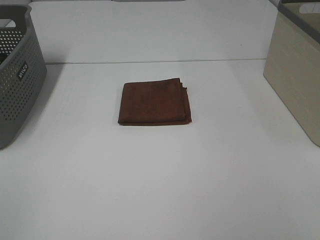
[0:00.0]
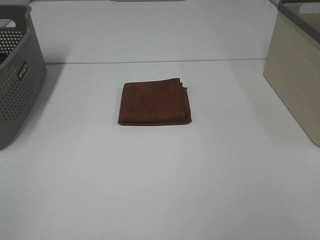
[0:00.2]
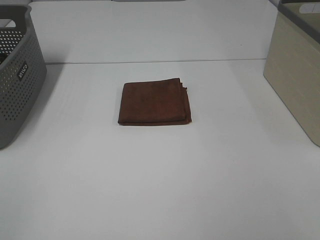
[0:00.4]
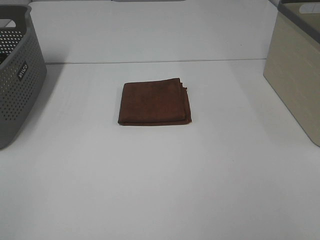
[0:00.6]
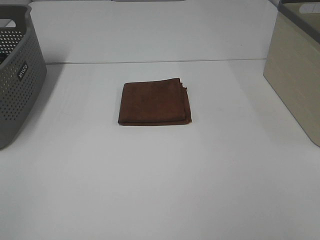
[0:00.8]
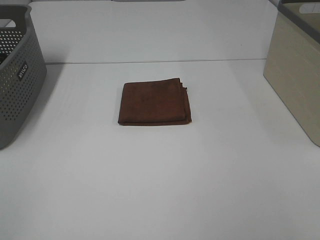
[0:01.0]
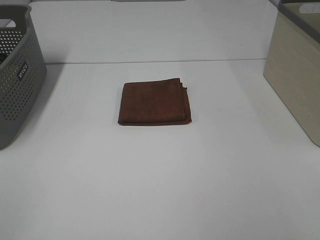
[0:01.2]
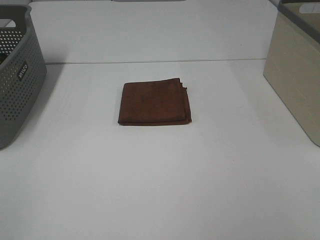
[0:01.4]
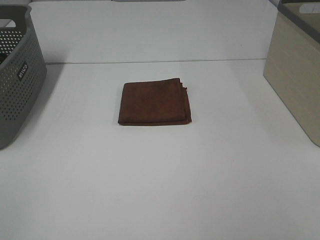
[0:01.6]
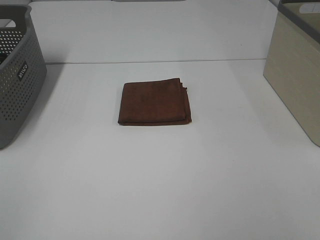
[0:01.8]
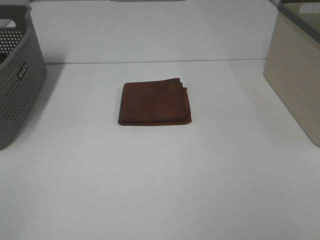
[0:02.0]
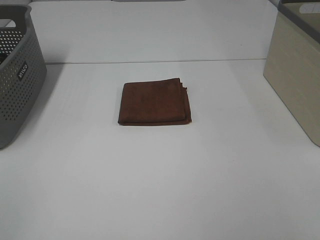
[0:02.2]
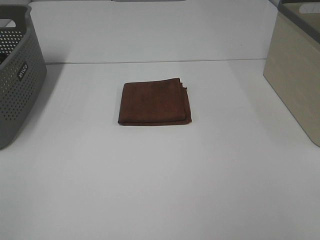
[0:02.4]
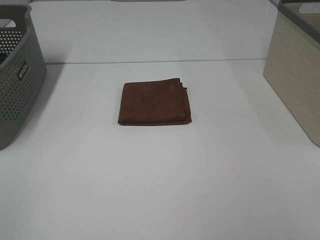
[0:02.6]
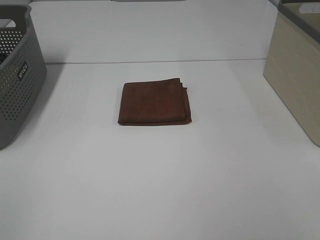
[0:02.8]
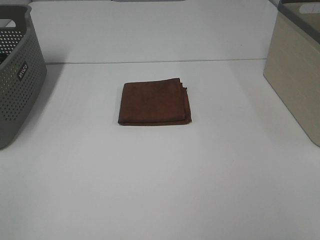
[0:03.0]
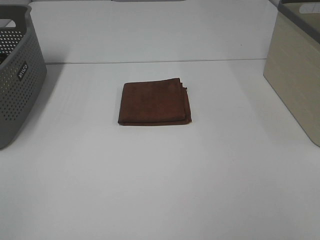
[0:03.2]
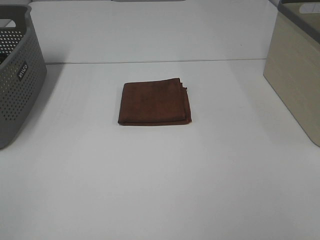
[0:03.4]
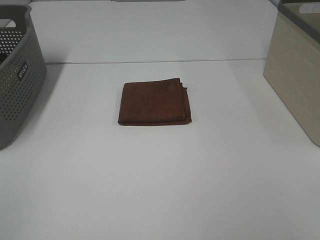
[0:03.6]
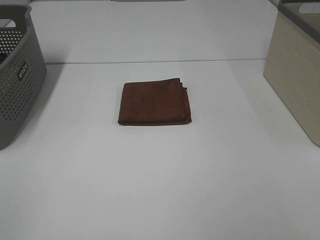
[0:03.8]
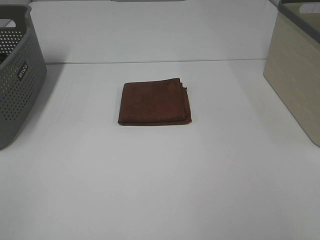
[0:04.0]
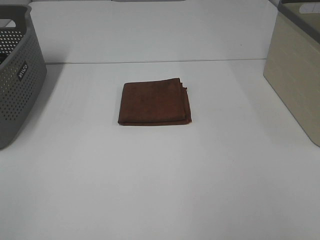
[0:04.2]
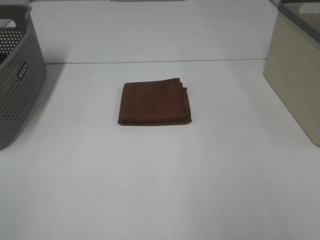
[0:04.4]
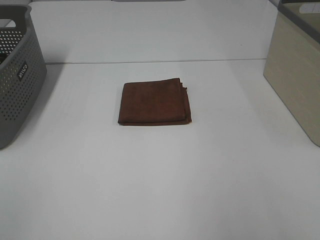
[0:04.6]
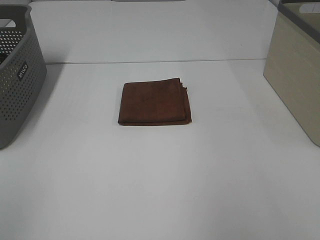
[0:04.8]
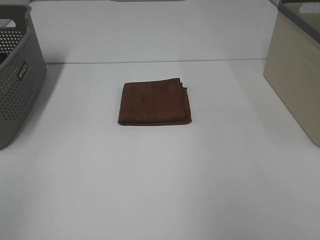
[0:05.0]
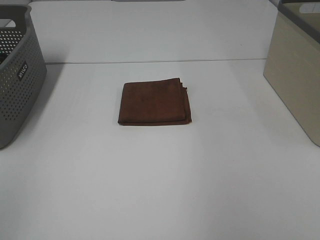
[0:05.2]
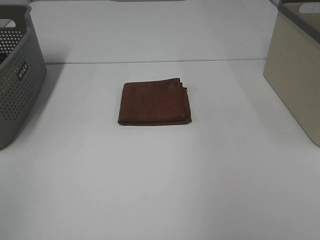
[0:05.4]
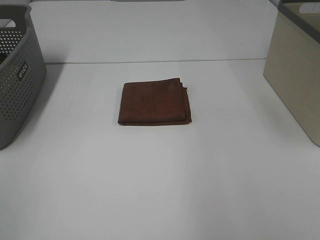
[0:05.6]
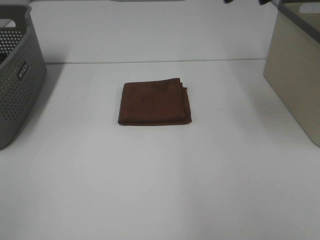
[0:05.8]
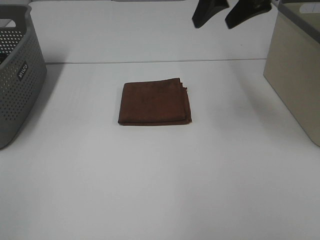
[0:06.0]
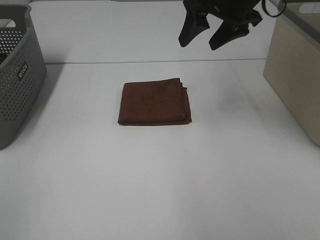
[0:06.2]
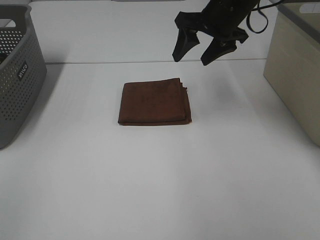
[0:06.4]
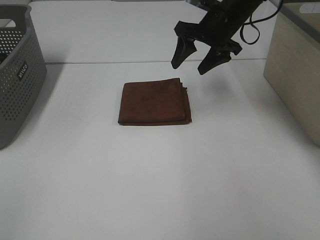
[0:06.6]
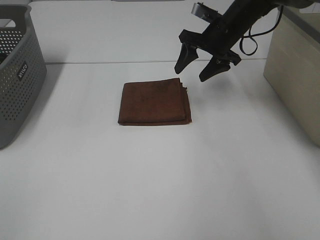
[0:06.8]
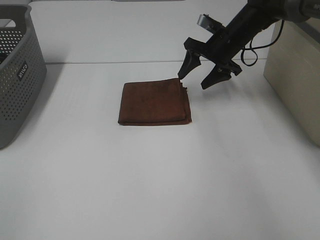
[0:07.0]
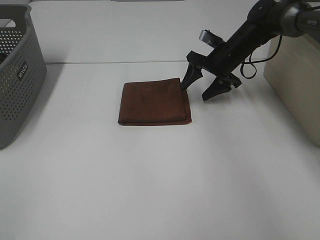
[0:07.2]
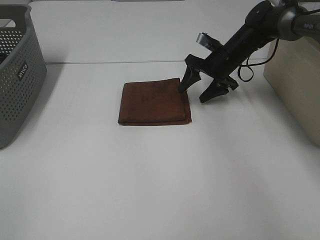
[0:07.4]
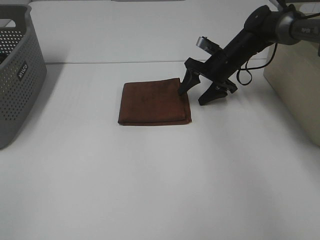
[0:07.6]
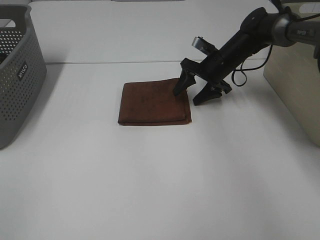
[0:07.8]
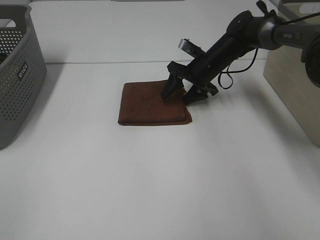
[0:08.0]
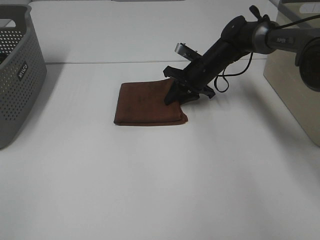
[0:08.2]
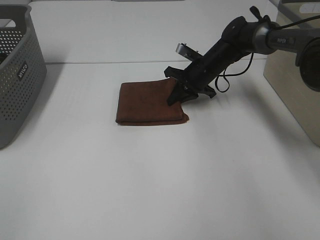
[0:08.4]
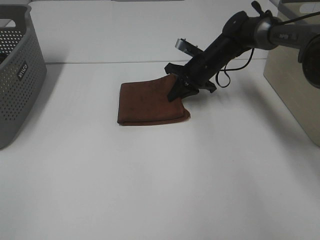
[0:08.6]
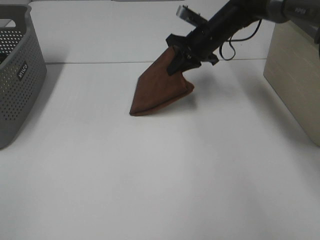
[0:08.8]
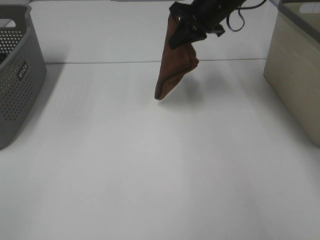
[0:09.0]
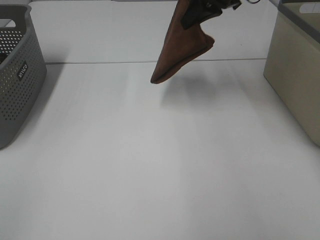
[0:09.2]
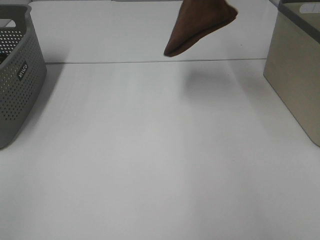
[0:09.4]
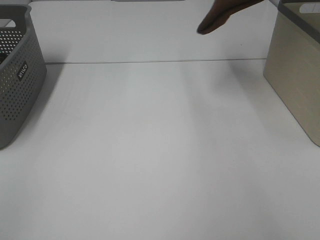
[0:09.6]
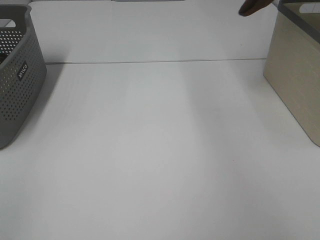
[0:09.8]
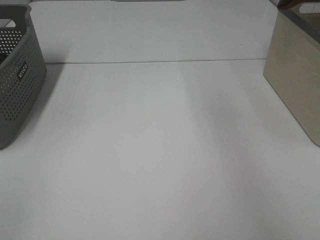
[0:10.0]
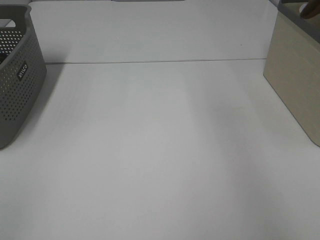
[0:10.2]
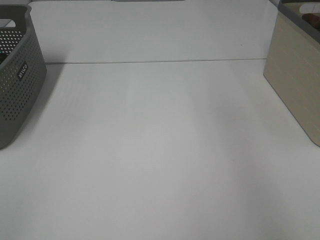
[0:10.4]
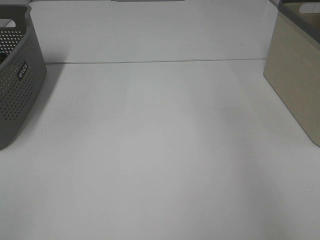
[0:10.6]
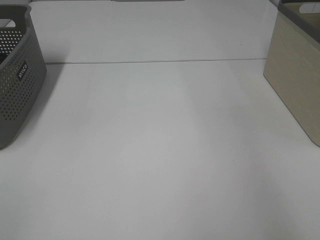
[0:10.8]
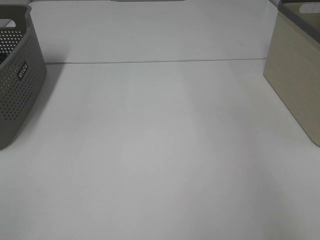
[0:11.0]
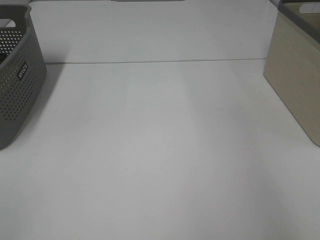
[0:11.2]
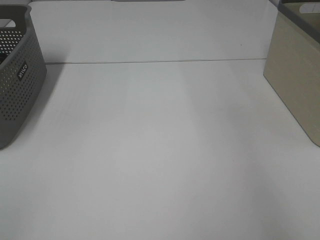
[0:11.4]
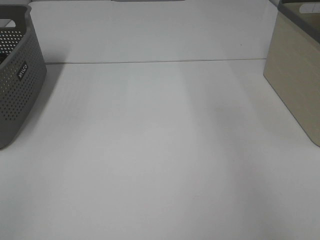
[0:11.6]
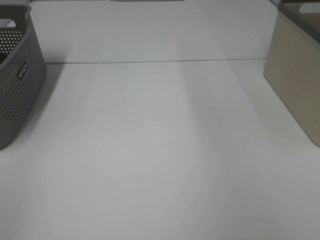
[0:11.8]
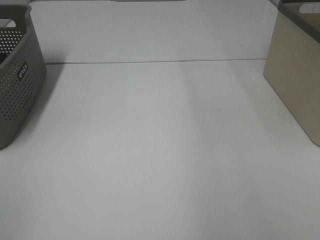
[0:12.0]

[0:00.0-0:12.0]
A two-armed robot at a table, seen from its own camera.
Step, 0:00.0 to 0:08.4: Right hand: grab the folded brown towel.
Step, 0:08.6 to 0:11.2: Right hand: place the brown towel in right basket.
0:00.0 to 0:03.0: Both grippers stay about where they are.
0:04.4 to 0:06.0: The right gripper is displaced forward and to the left by approximately 35 cm.
0:06.0 to 0:07.6: The right gripper heads downward and forward, covering roughly 25 cm.
0:07.6 to 0:09.0: The right gripper shifts approximately 15 cm upward, and closes its fingers.
0:09.0 to 0:10.4: The right gripper travels to the right and upward by some 30 cm.

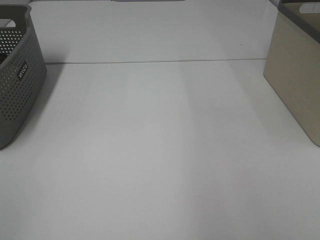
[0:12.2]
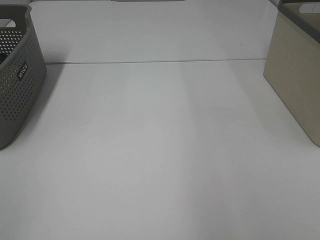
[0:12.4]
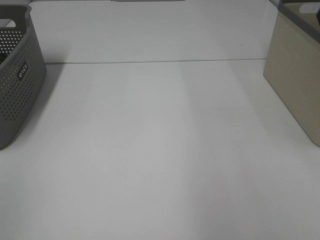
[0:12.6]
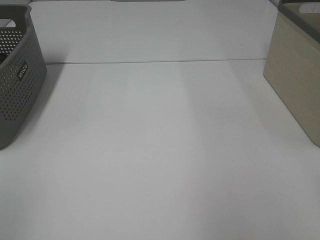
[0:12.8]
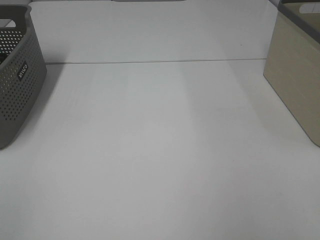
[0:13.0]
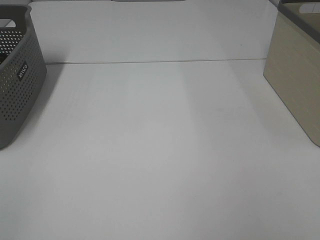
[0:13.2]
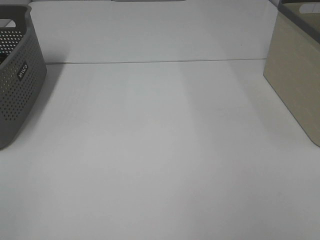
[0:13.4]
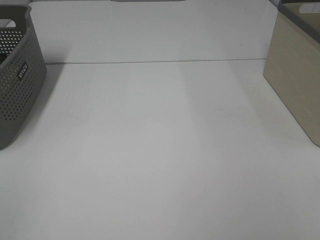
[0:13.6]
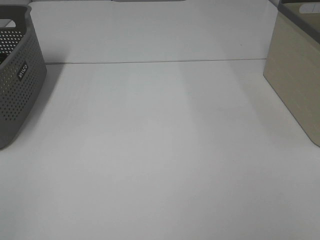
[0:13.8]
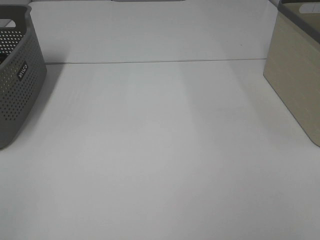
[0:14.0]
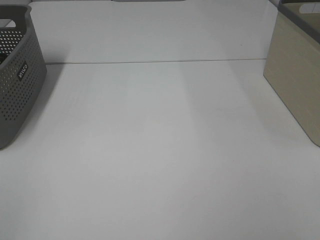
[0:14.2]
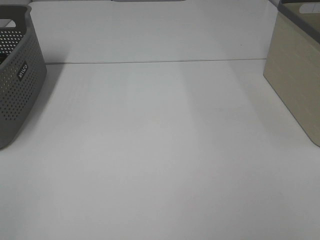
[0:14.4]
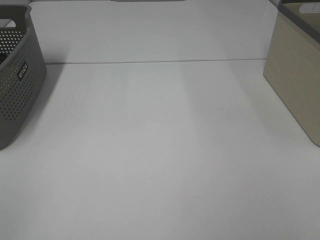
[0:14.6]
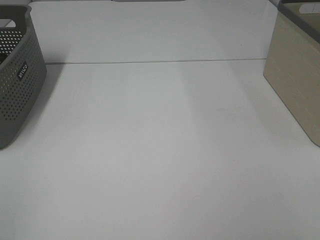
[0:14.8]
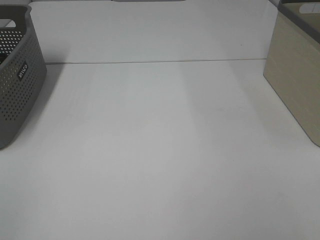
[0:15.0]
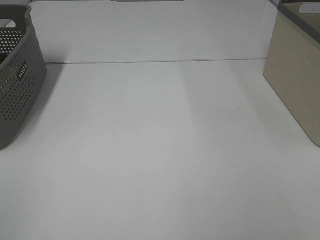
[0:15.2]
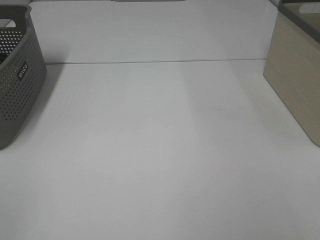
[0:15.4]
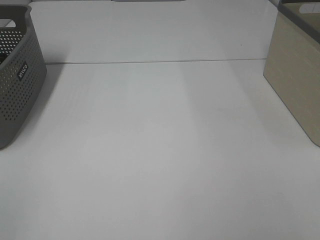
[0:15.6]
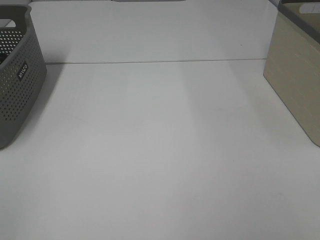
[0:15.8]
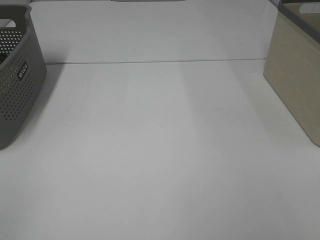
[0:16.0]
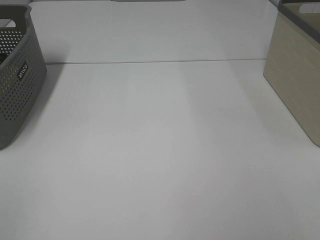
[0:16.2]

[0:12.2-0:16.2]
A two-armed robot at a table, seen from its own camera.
0:13.6 to 0:14.8: The two grippers keep their place.
0:14.8 to 0:16.2: Both grippers stay put.

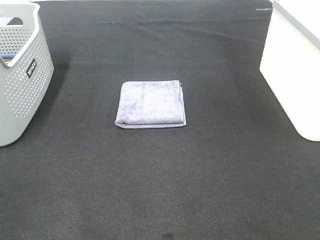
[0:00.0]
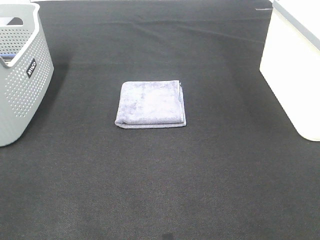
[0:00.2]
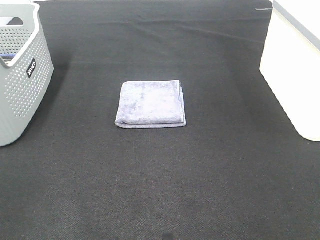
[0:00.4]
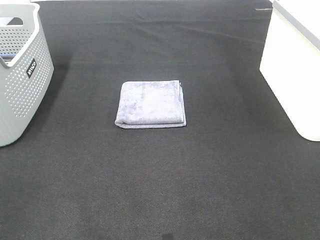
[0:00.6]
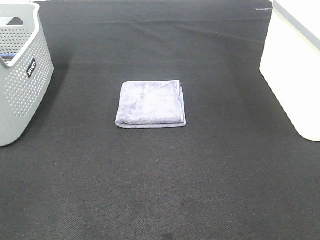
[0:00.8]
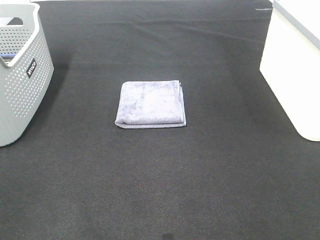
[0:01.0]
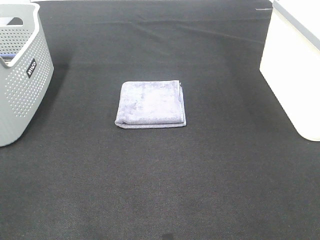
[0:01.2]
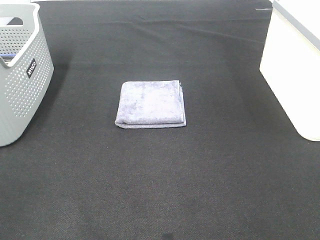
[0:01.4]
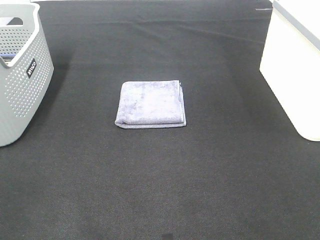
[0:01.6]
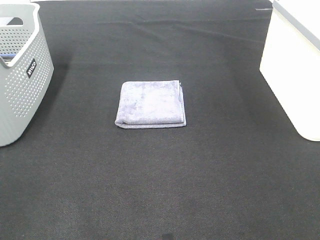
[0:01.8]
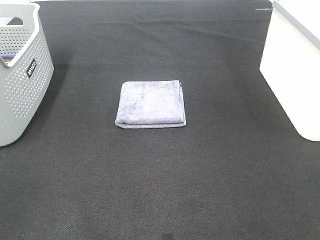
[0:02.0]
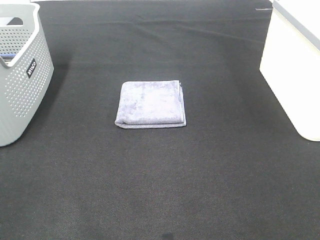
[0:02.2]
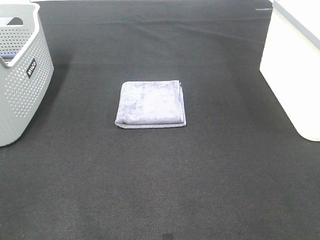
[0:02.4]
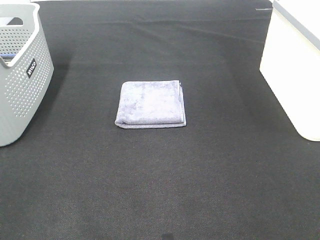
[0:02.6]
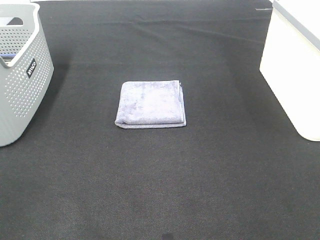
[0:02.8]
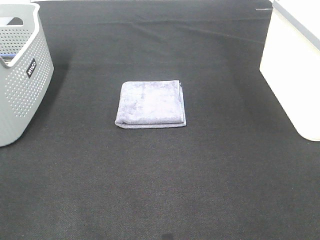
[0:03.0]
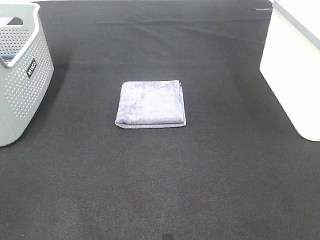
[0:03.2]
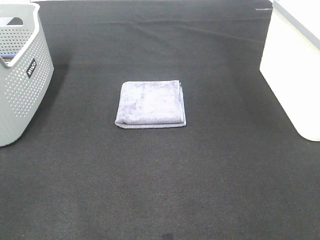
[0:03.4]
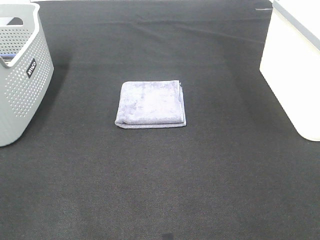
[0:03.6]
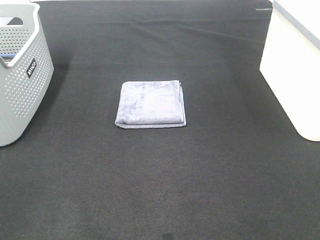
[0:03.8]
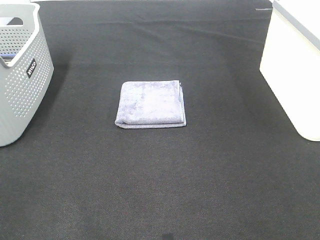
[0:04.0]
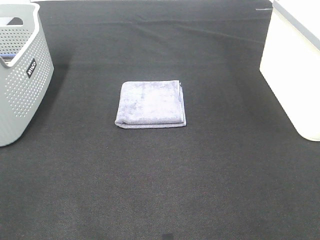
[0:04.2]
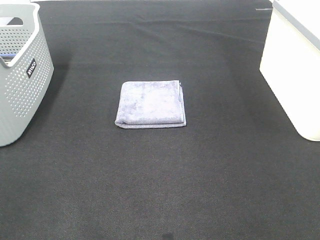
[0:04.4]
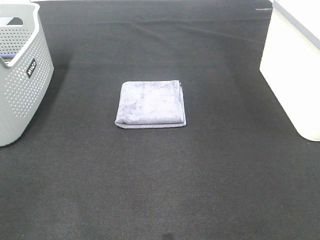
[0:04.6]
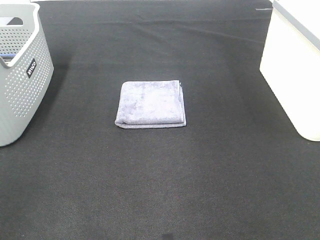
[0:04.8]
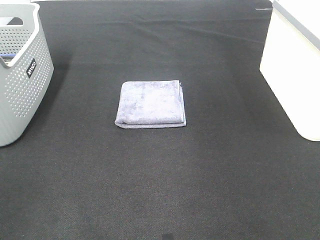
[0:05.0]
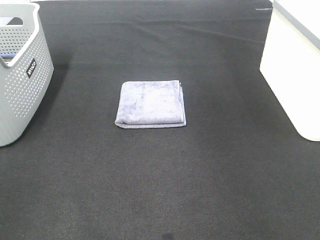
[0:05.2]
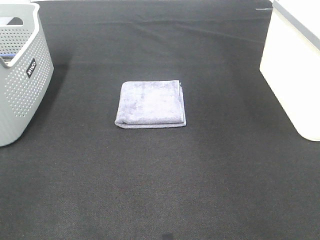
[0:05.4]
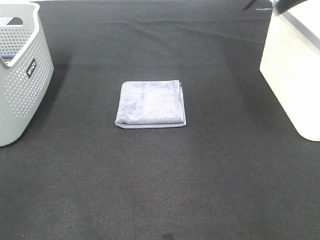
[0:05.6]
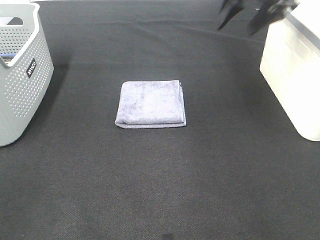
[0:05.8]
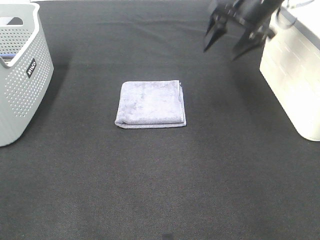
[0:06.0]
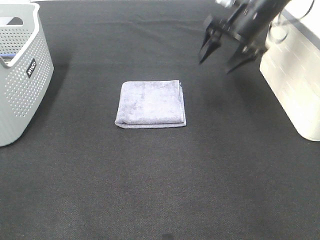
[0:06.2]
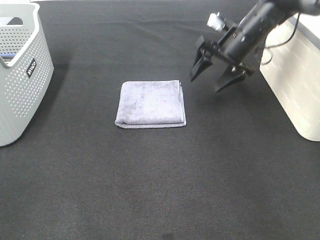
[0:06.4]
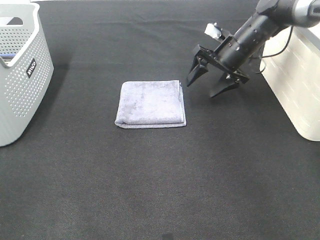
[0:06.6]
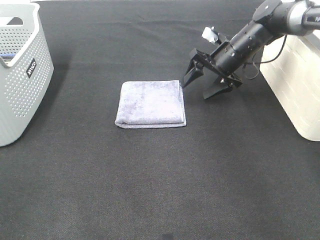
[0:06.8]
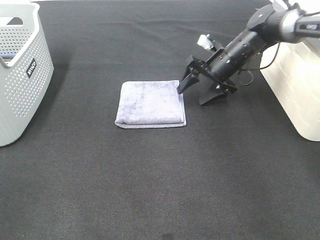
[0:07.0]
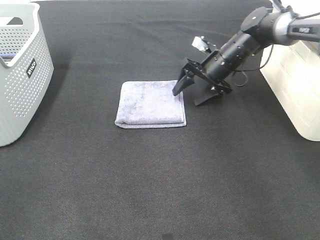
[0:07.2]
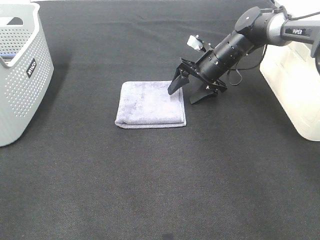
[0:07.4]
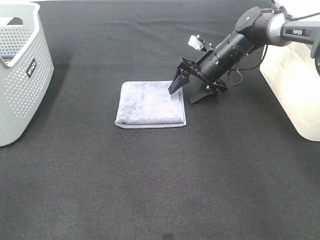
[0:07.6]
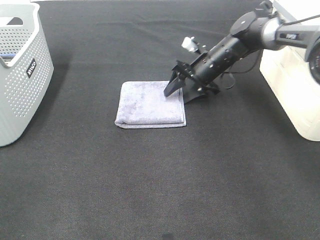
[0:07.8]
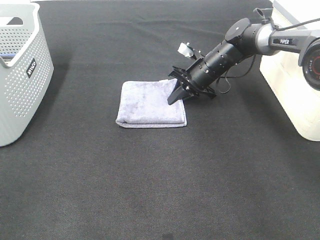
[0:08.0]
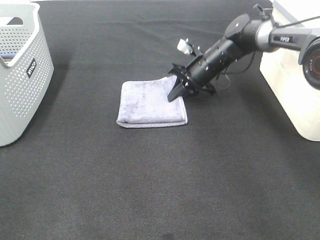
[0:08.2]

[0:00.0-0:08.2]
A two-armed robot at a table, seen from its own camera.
Step, 0:00.0 to 0:08.2: Right hand: grab the folded grey towel.
0:00.0 to 0:03.2: The two grippers keep their place.
0:05.0 to 0:06.6: The right gripper travels downward, forward and to the left by roughly 35 cm.
0:06.6 to 0:08.2: The right gripper moves to the left, some 5 cm, and closes.
